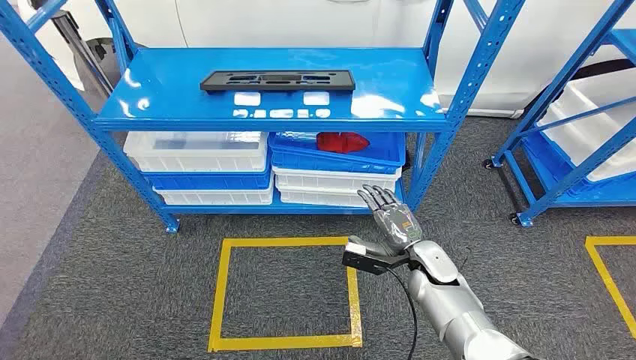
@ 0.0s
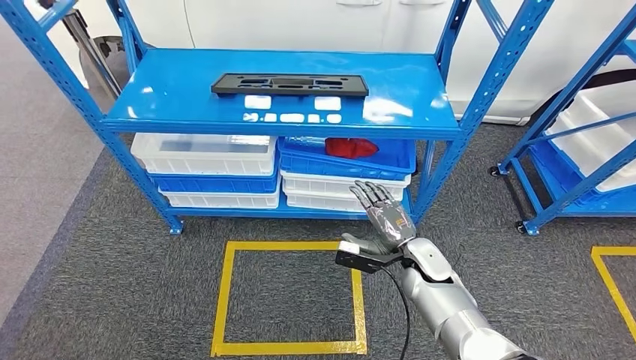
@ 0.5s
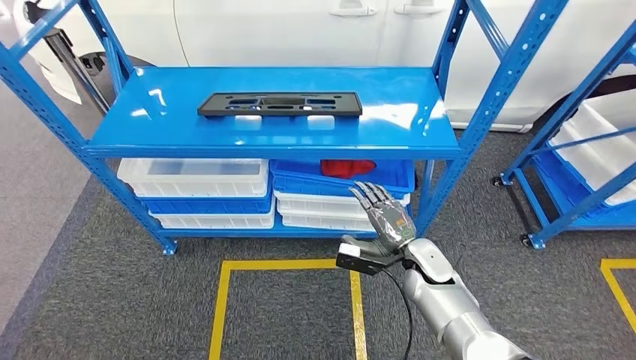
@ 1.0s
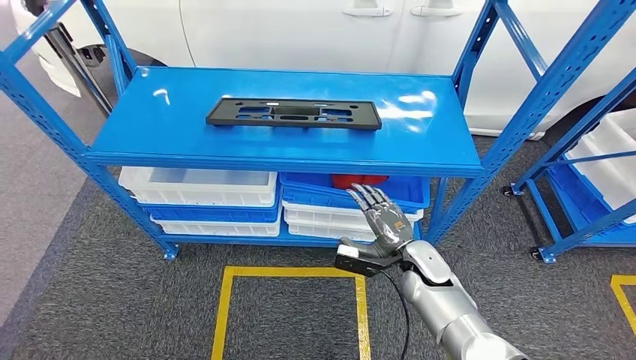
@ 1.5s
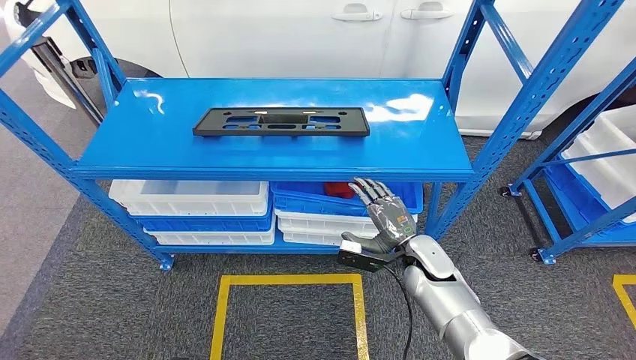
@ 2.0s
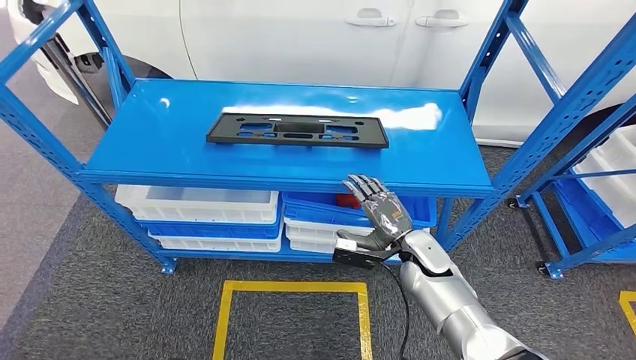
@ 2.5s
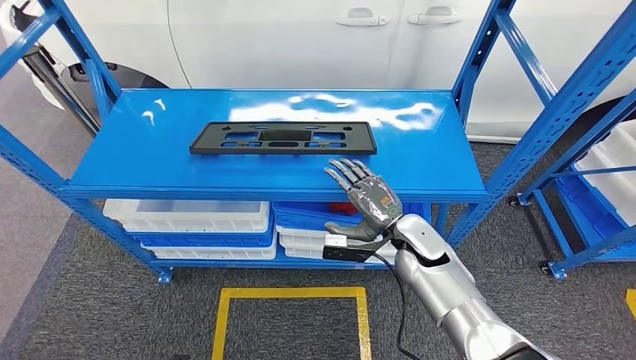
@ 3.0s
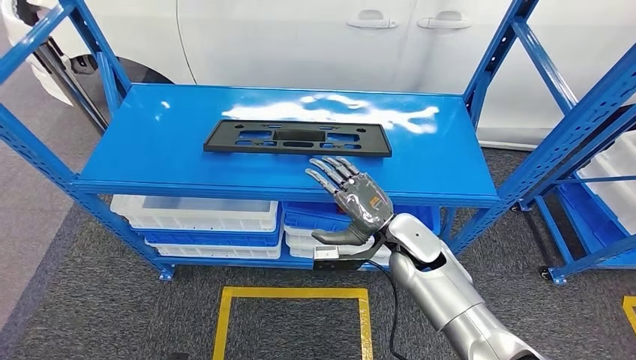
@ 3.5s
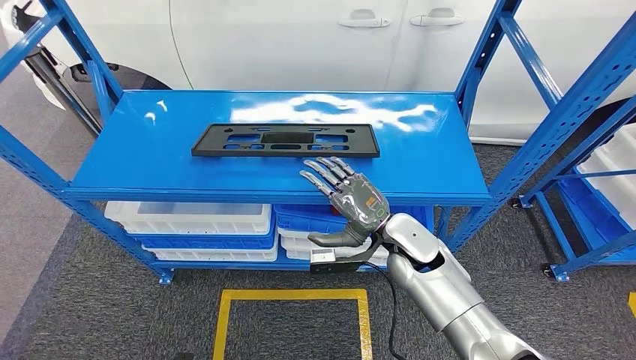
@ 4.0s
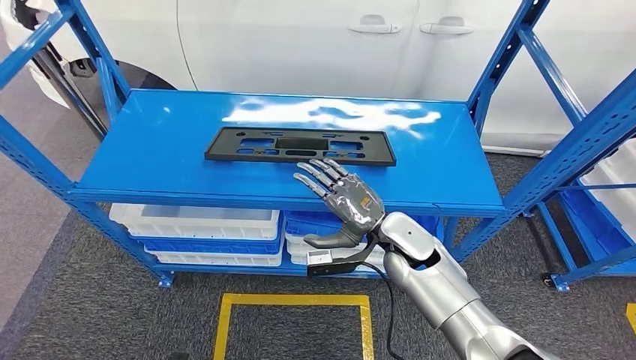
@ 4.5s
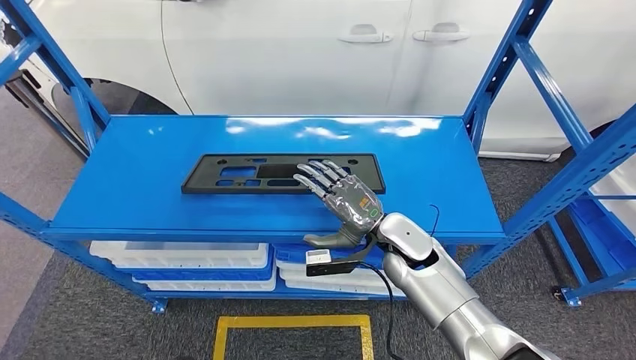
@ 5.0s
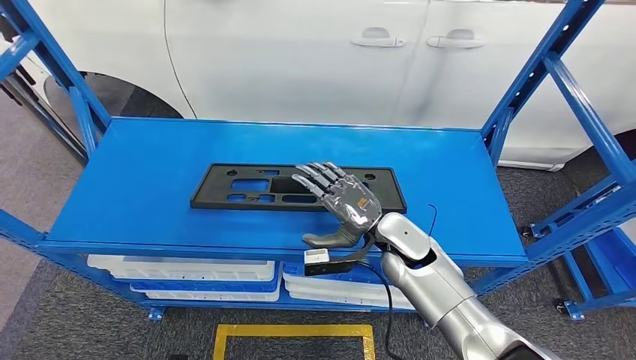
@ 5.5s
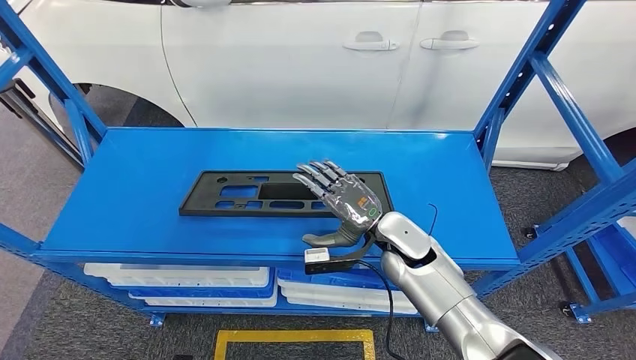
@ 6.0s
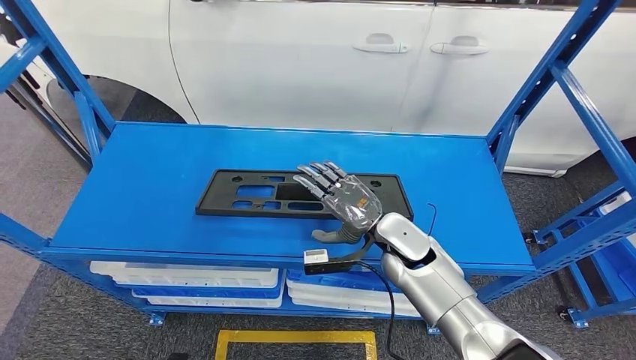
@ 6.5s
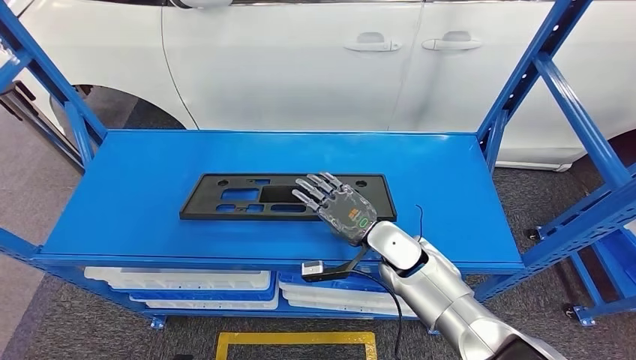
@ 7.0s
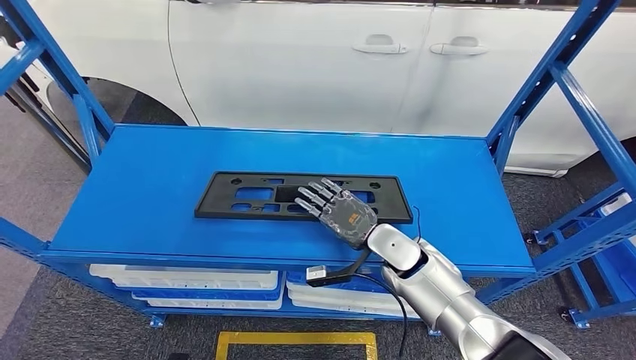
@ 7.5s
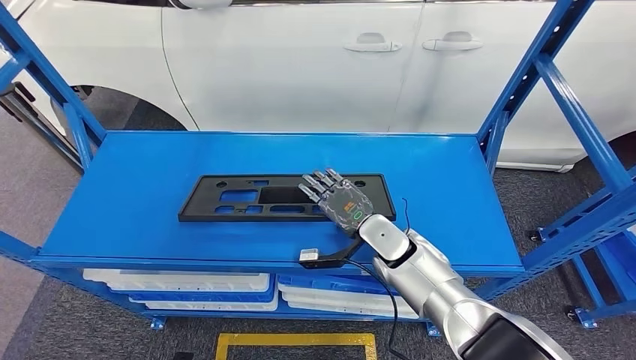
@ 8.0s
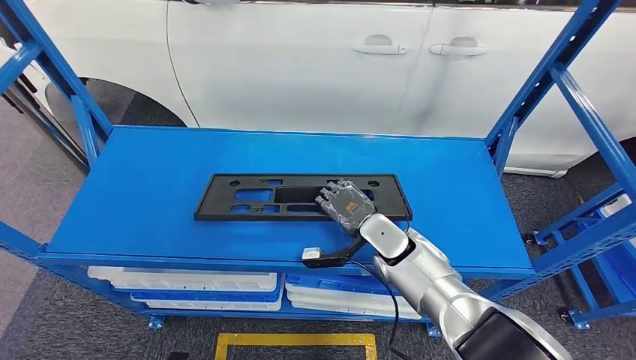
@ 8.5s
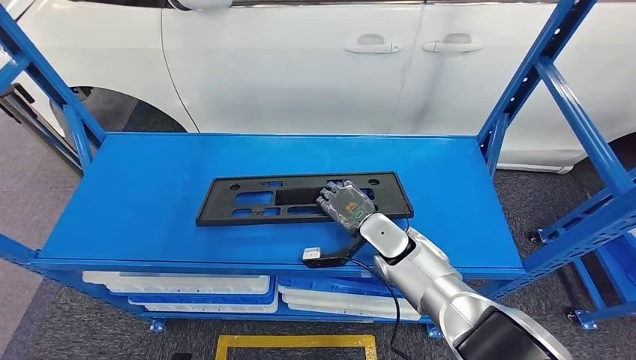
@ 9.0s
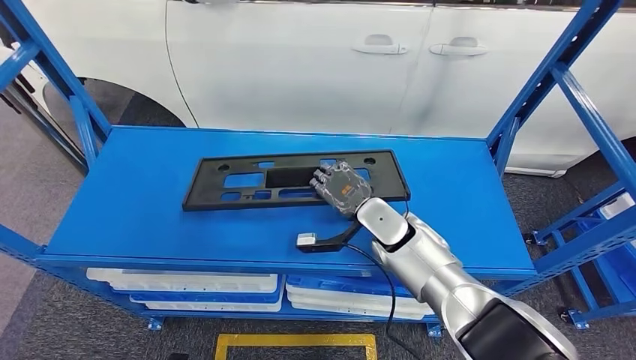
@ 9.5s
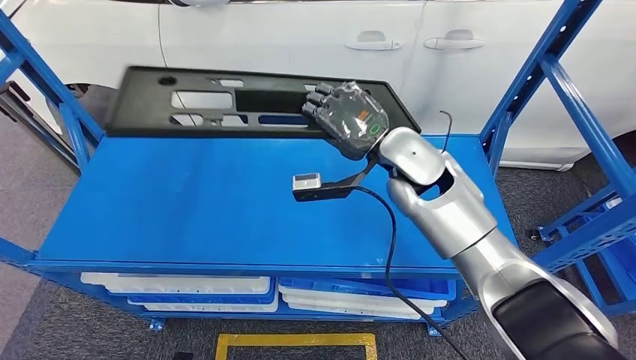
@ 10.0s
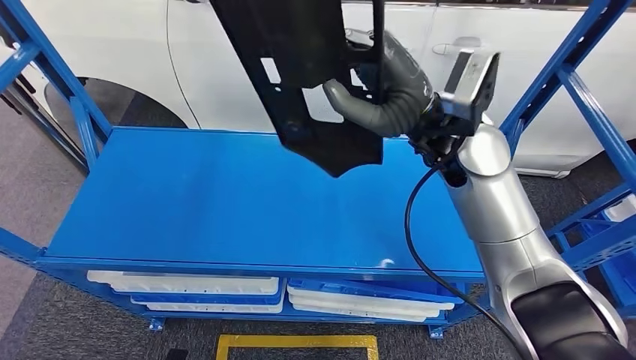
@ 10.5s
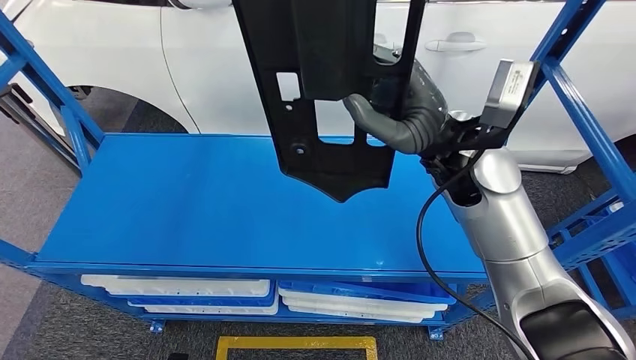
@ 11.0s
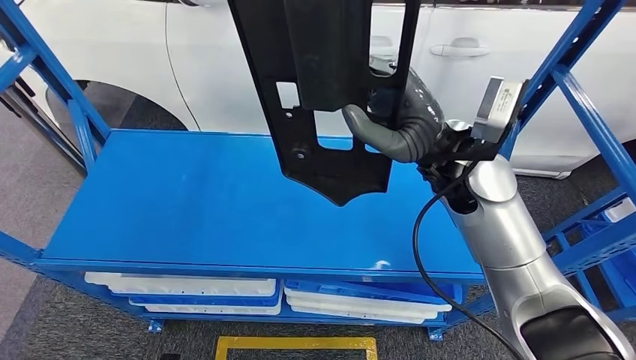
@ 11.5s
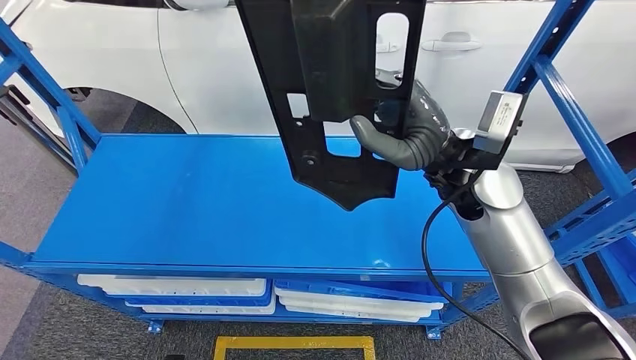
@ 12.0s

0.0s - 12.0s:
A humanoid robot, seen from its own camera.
Step, 0.0s - 9.5s: Pick up the large material from the shelf.

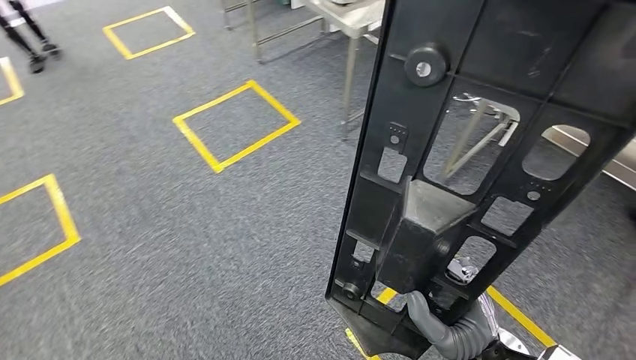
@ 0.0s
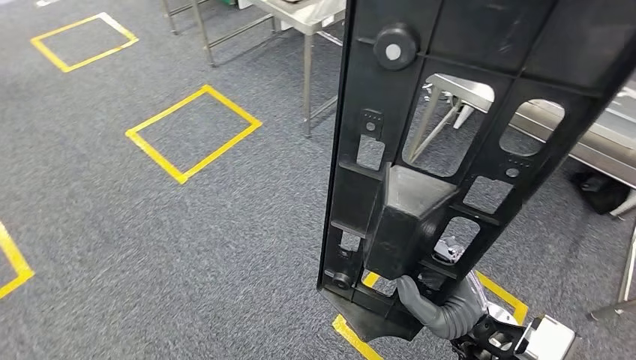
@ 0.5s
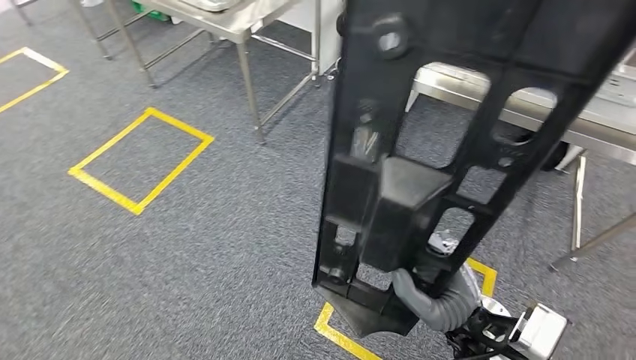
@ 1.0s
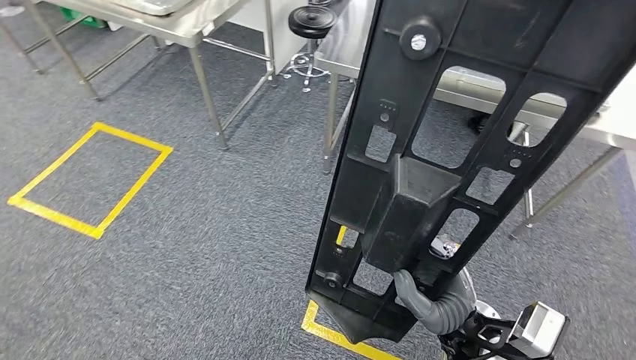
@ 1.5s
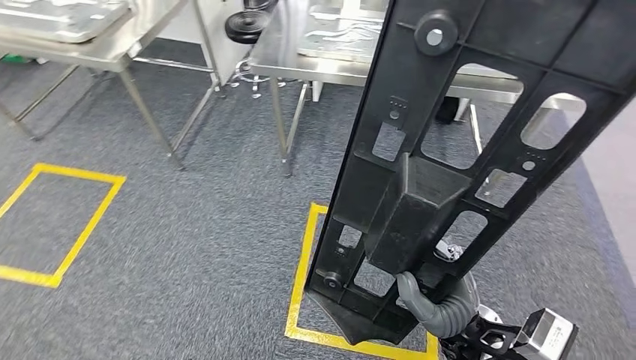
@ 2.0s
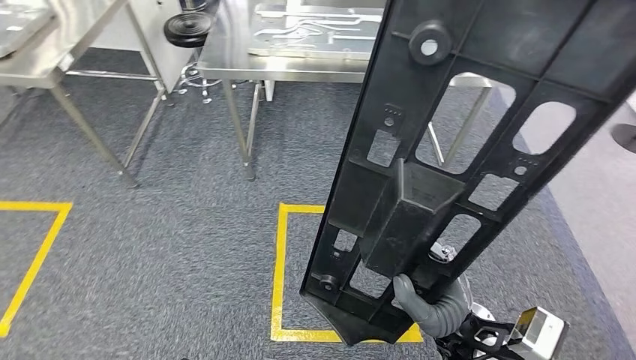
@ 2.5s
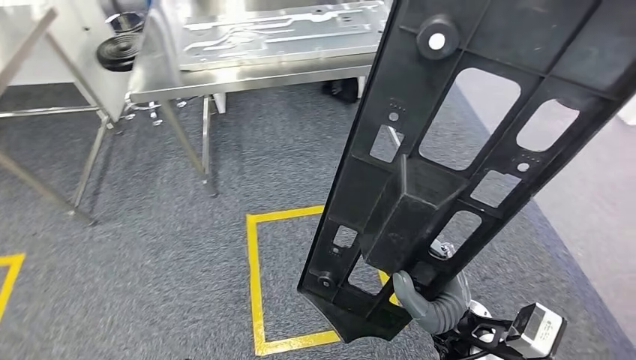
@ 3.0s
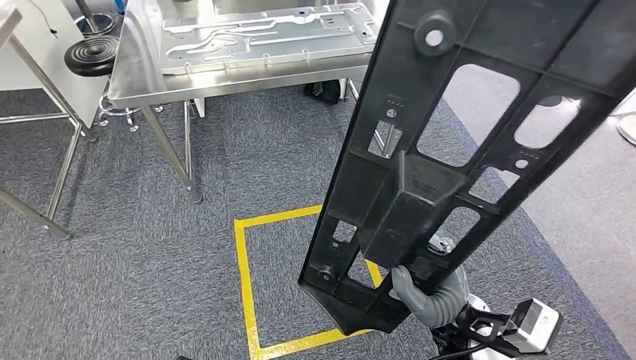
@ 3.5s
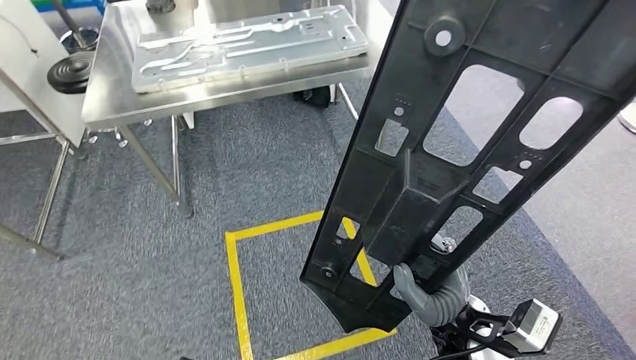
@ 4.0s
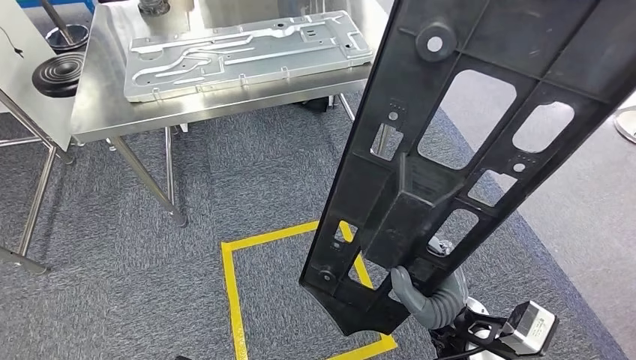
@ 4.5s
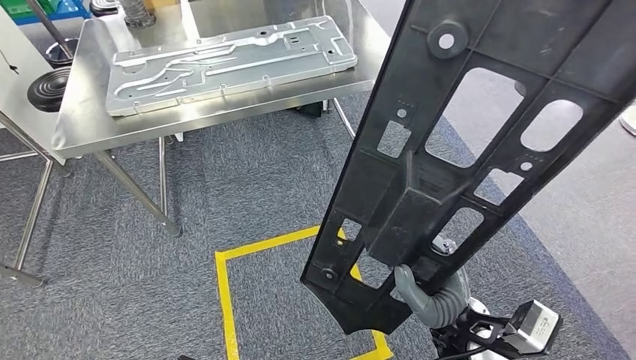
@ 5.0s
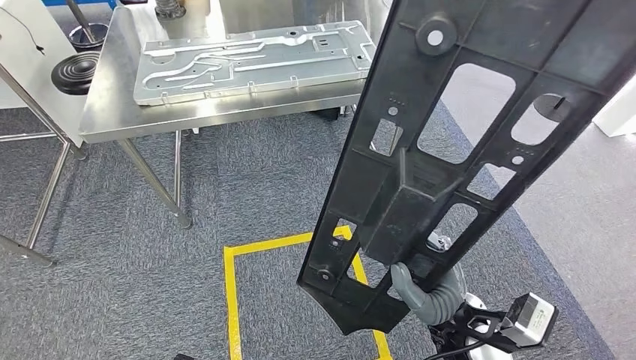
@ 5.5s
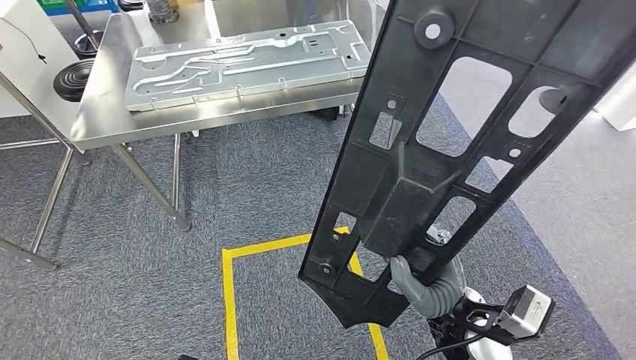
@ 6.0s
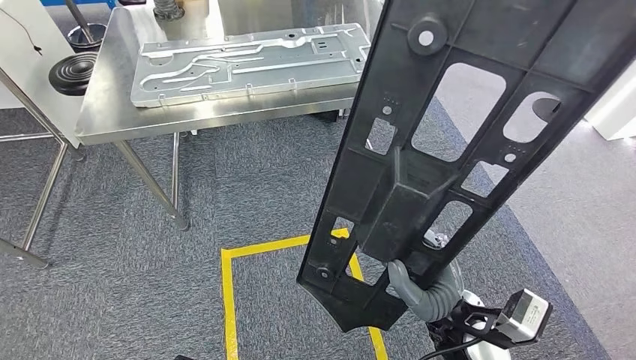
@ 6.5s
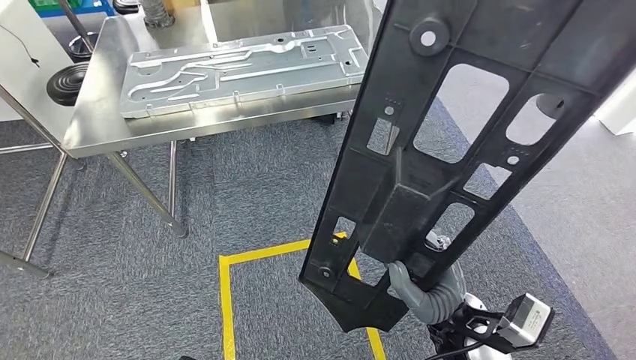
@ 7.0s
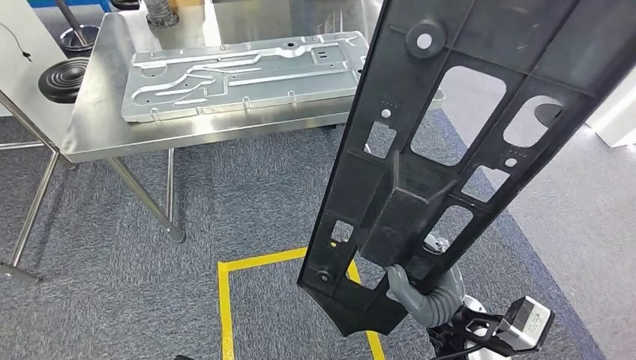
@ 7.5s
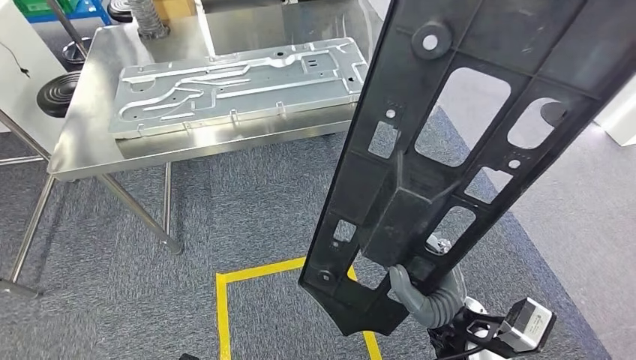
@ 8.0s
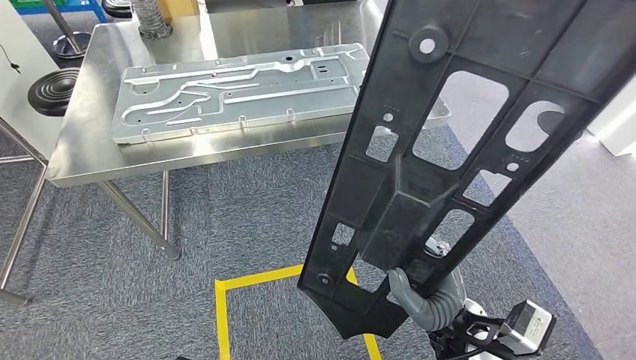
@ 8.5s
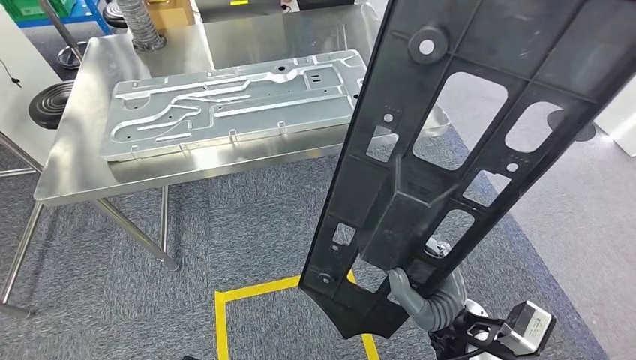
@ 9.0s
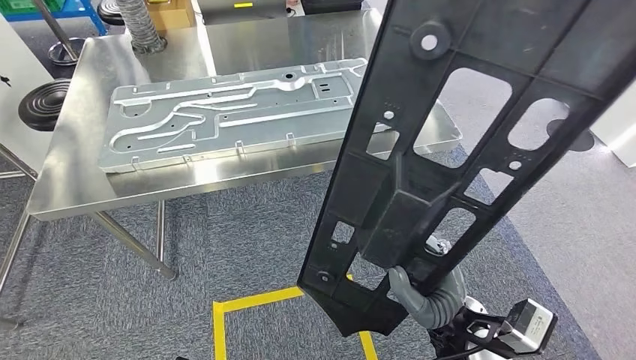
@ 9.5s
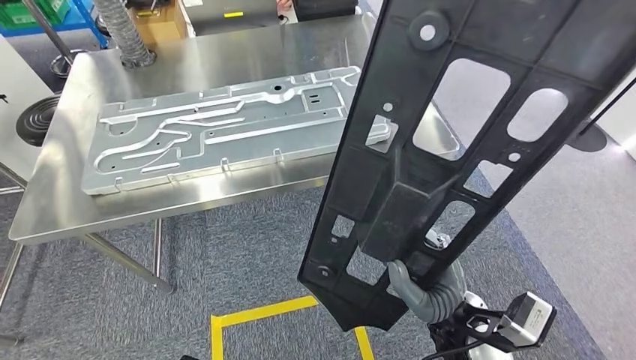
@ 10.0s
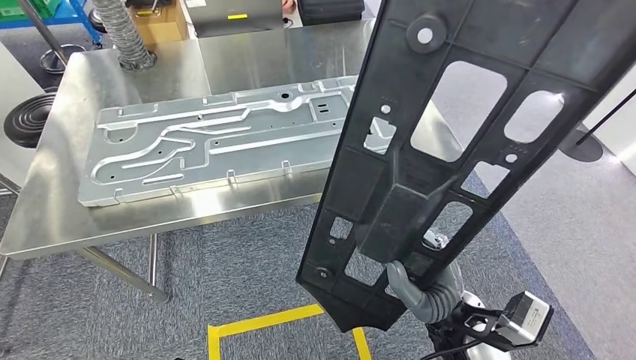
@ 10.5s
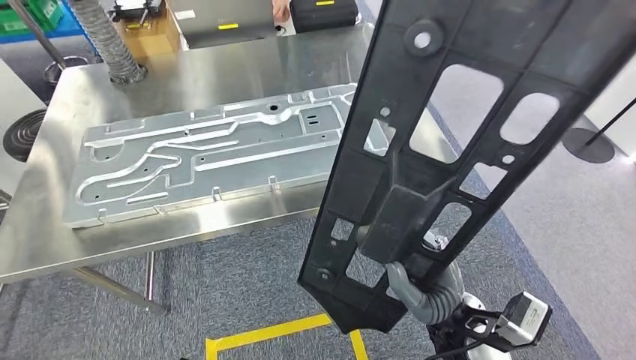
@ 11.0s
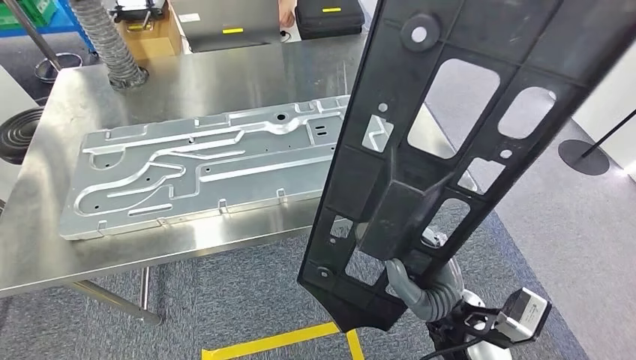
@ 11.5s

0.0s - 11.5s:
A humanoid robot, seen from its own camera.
Step, 0.0s - 11.0s: Move the large material to the front of the workbench.
